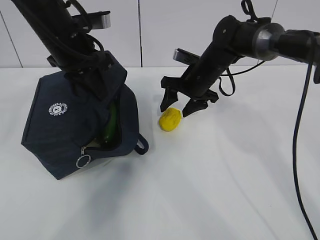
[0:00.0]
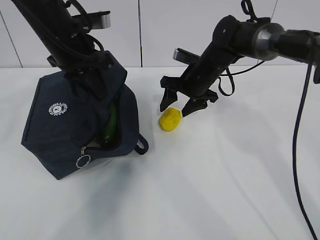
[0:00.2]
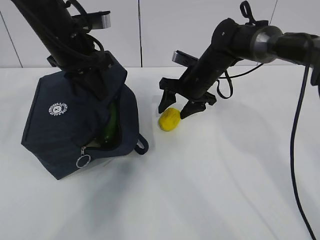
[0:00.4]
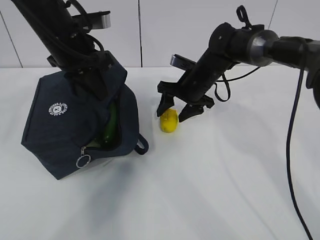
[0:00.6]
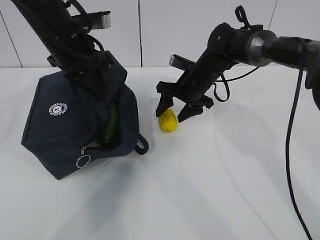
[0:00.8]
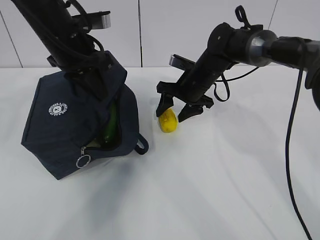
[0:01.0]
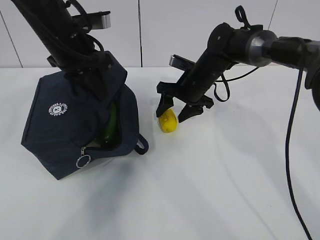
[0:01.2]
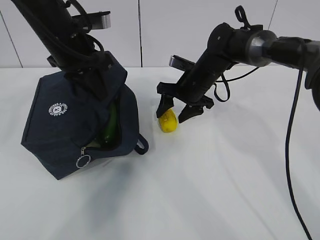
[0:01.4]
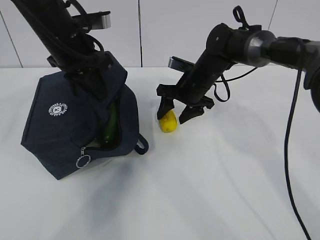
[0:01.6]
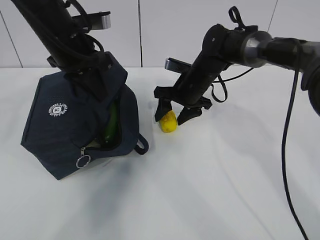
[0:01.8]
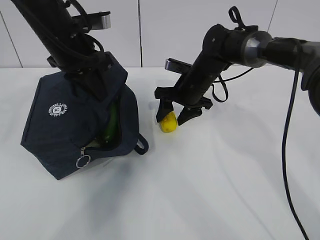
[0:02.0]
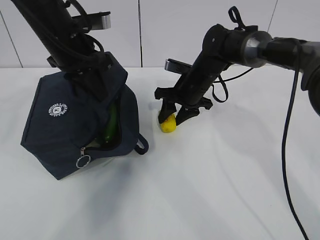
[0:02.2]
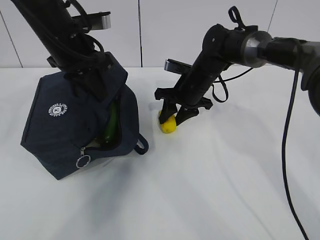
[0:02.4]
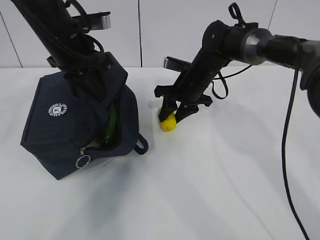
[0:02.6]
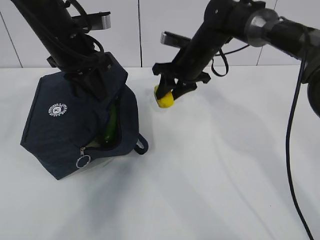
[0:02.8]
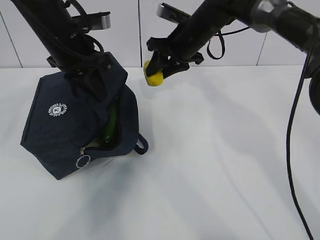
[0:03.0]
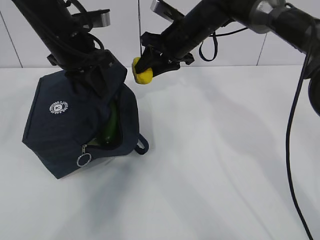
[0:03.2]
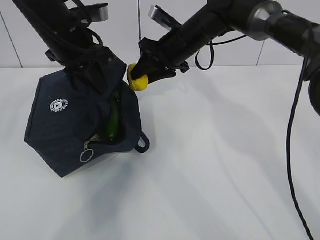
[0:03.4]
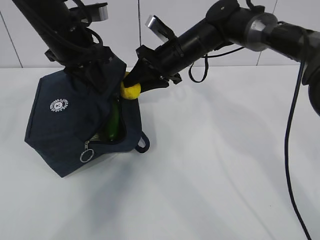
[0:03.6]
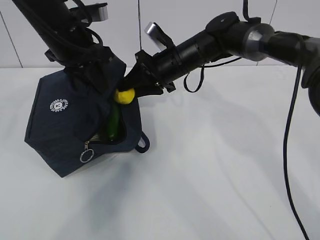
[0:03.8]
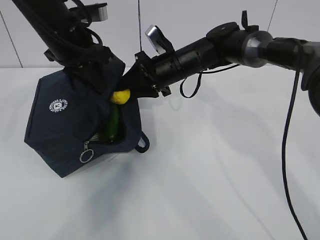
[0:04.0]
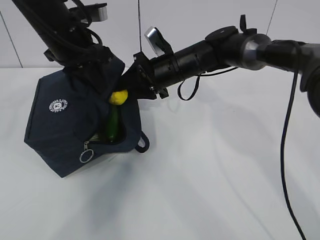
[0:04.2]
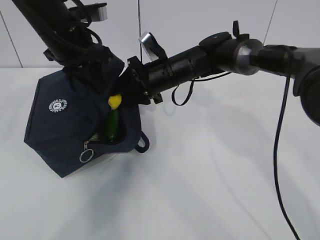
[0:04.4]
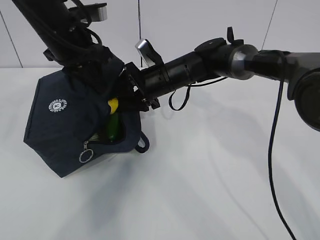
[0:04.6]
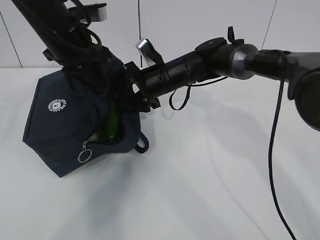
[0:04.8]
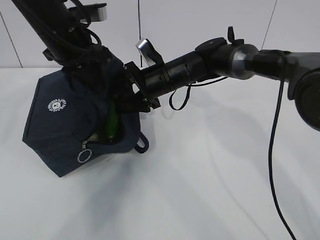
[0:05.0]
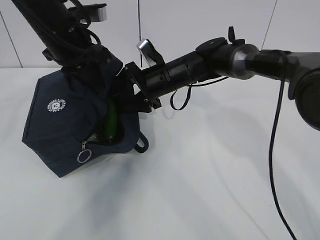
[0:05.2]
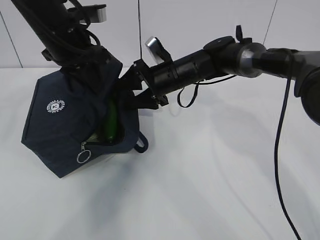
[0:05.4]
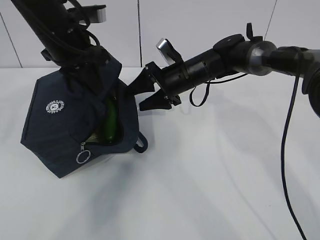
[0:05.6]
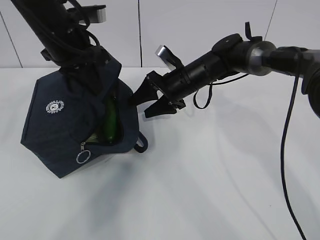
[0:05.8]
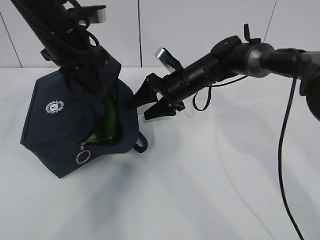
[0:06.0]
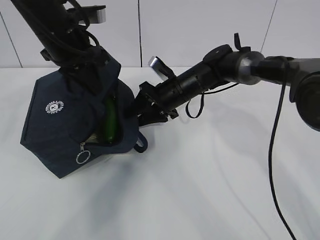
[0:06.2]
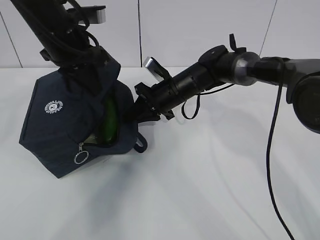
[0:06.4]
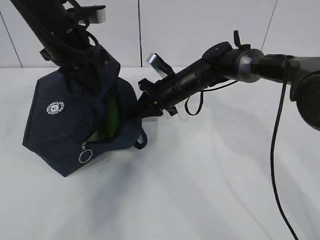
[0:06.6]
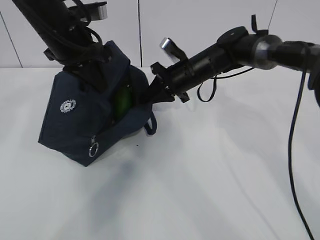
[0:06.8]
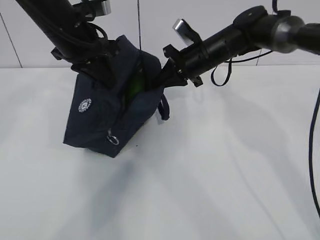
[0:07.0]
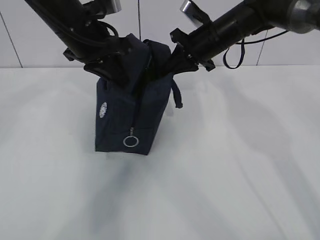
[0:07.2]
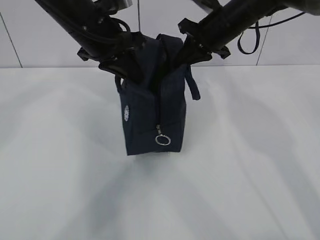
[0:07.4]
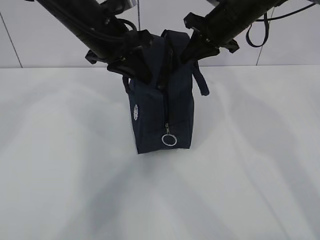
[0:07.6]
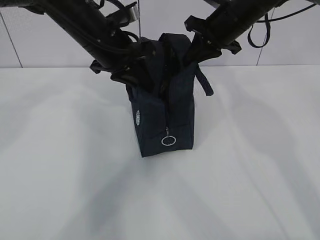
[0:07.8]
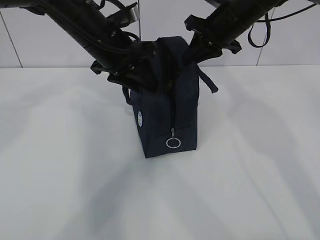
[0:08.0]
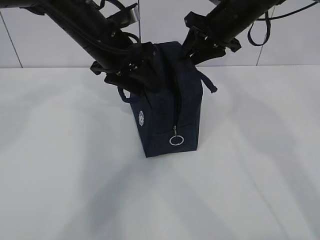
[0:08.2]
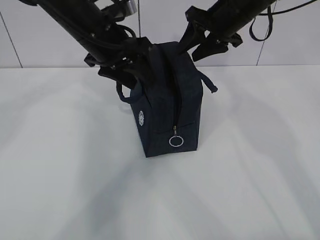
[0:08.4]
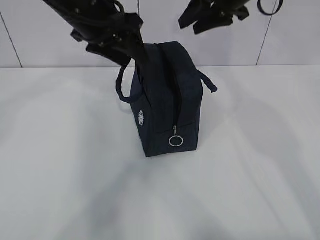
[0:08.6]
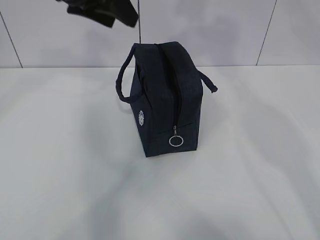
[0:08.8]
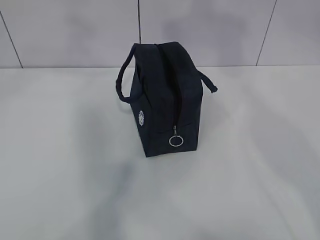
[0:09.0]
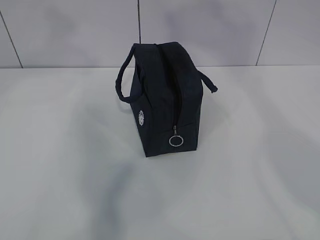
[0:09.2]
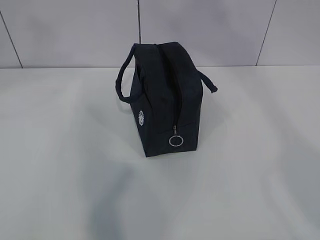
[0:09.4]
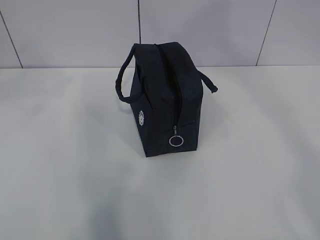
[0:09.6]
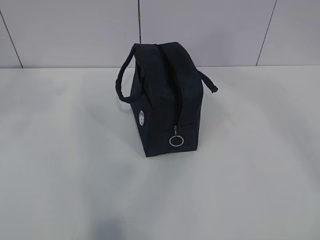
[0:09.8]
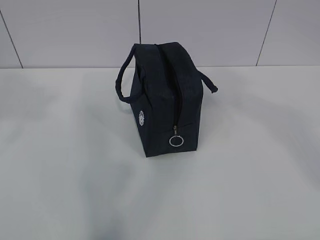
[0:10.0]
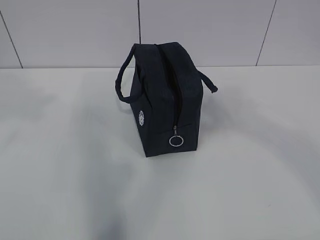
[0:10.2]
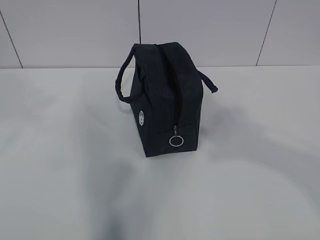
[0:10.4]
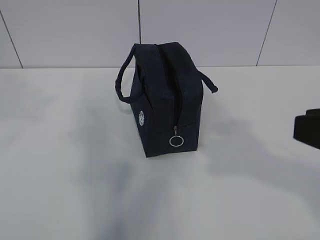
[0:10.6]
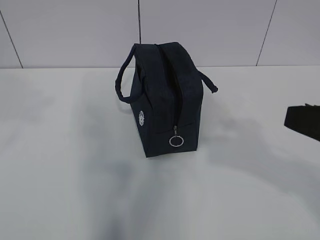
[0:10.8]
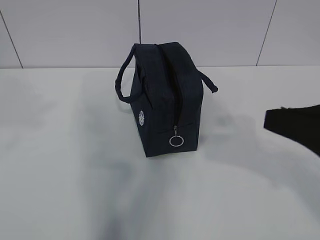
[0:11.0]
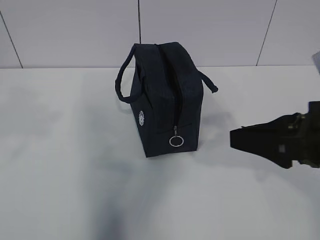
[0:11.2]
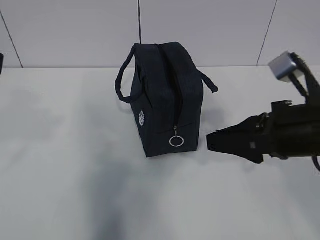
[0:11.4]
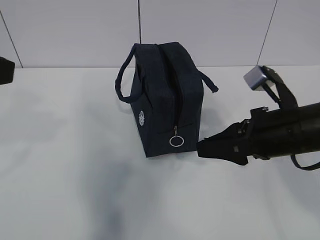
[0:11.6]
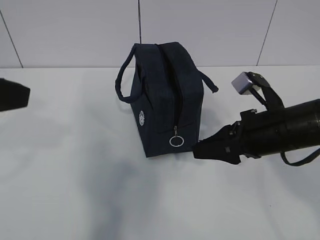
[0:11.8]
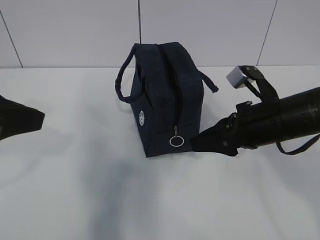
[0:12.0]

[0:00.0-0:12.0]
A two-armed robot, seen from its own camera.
Step, 0:00.0 to 0:01.2: Grab the lunch bag with your right hand.
0:00.0 to 0:01.6: The grippers make only small movements.
0:01.6 to 0:03.0: The right gripper travels upward by about 10 cm, and closes up.
0:03.0 to 0:04.4: The right gripper is displaced downward by approximately 5 cm.
0:04.4 to 0:06.0: The right gripper shifts by about 5 cm, and opens up.
0:06.0 to 0:07.6: The left gripper travels to the right by roughly 5 cm, while the right gripper shifts about 15 cm upward and to the right, and closes its fingers.
0:07.6 to 0:09.0: Both grippers move upward and backward, some 20 cm. The right gripper opens. Meanwhile the left gripper opens.
0:09.0 to 0:10.4: The left gripper shifts some 20 cm backward and to the left. Meanwhile the right gripper moves backward and downward, roughly 30 cm.
0:10.4 to 0:12.0: The right gripper travels forward and downward by approximately 25 cm; the left gripper shifts some 15 cm downward.

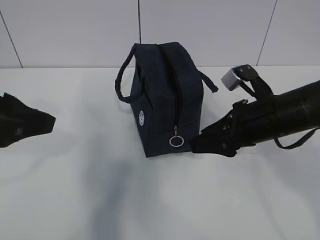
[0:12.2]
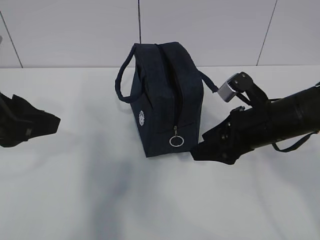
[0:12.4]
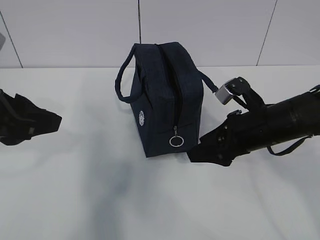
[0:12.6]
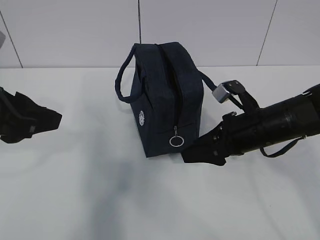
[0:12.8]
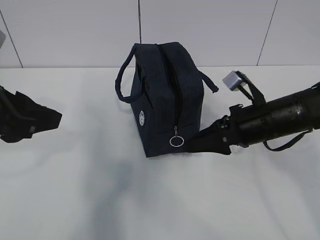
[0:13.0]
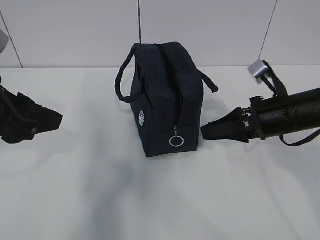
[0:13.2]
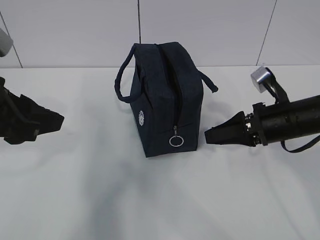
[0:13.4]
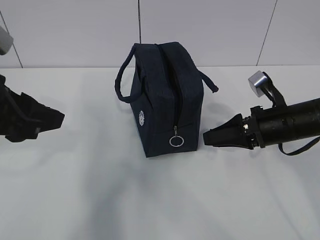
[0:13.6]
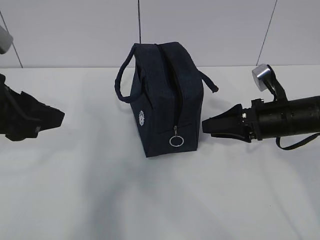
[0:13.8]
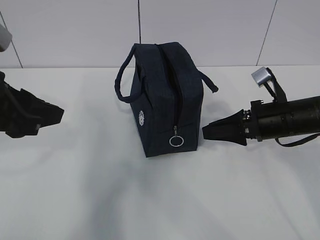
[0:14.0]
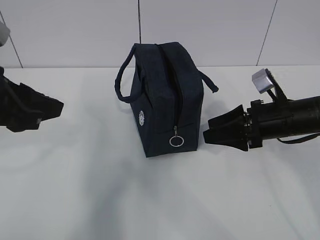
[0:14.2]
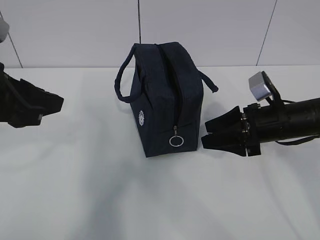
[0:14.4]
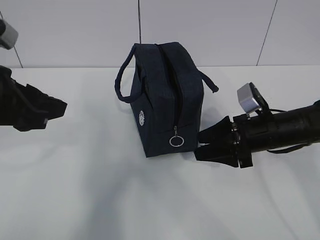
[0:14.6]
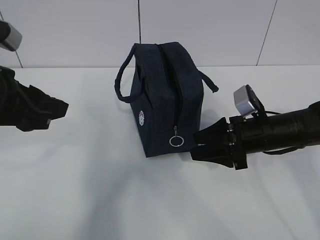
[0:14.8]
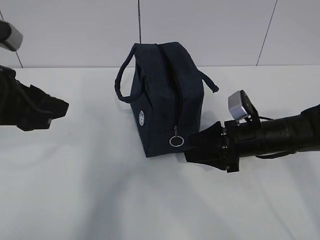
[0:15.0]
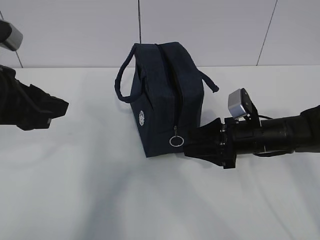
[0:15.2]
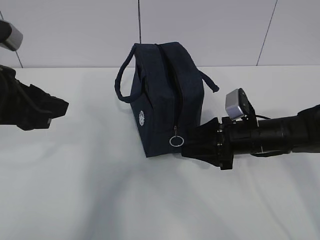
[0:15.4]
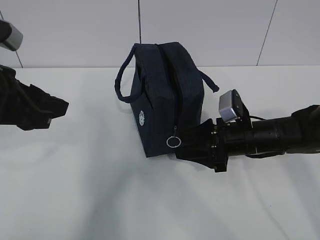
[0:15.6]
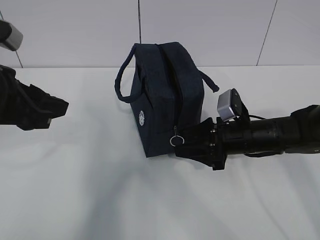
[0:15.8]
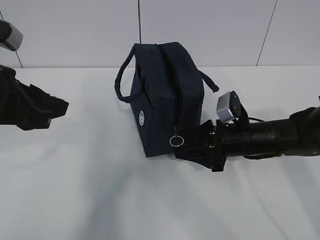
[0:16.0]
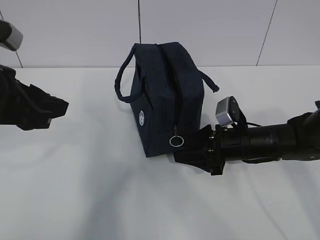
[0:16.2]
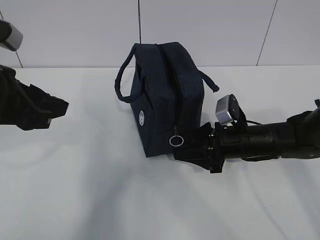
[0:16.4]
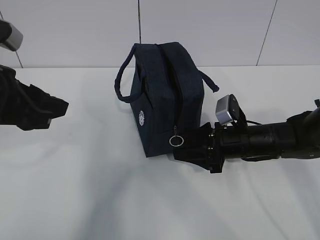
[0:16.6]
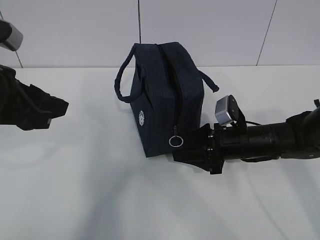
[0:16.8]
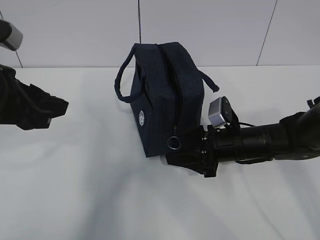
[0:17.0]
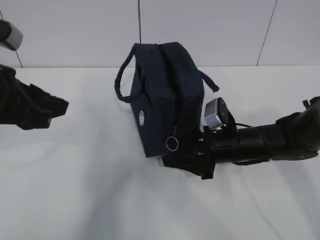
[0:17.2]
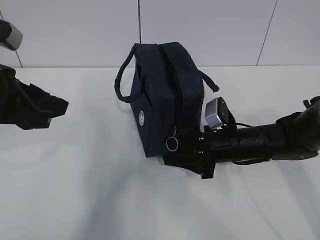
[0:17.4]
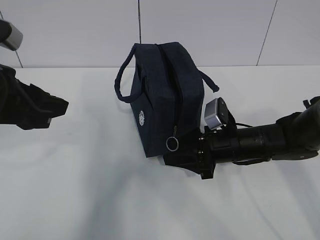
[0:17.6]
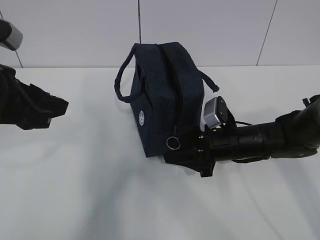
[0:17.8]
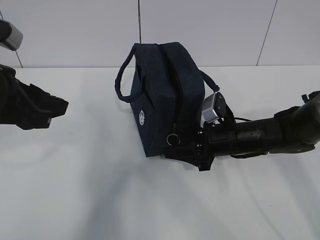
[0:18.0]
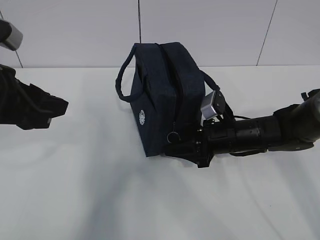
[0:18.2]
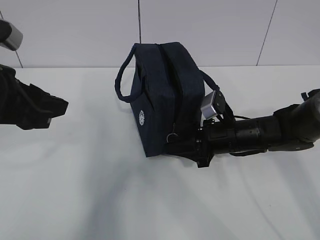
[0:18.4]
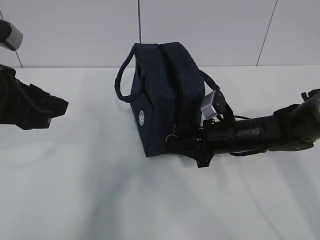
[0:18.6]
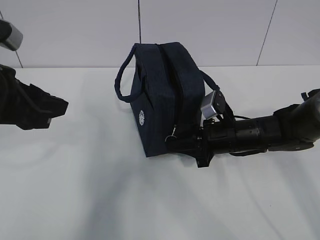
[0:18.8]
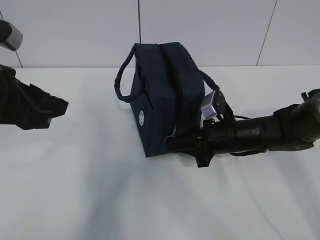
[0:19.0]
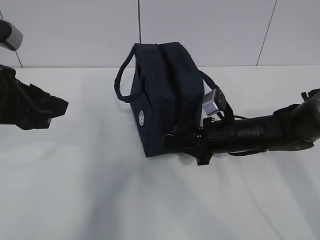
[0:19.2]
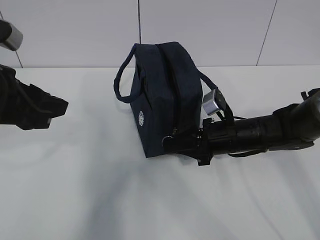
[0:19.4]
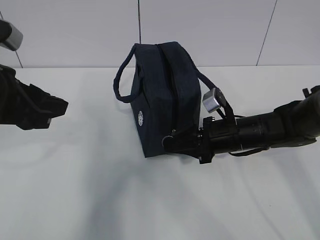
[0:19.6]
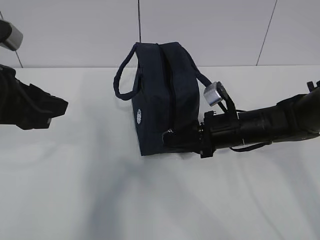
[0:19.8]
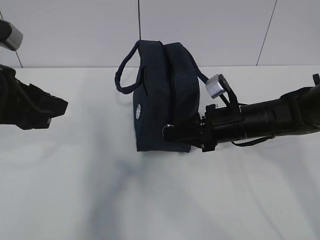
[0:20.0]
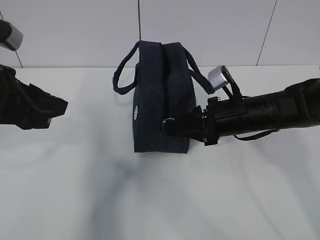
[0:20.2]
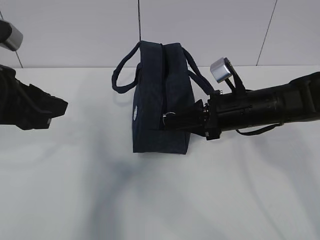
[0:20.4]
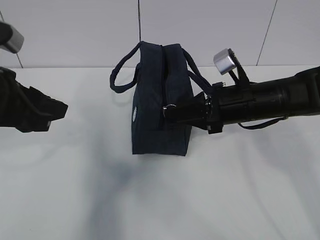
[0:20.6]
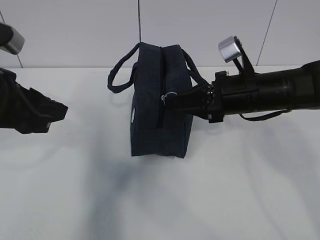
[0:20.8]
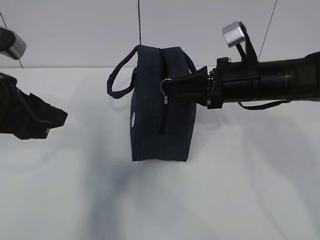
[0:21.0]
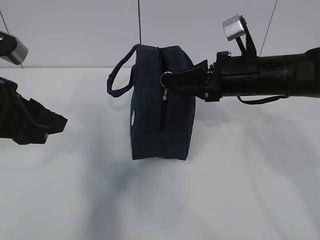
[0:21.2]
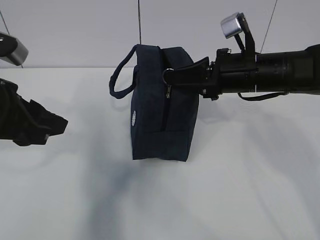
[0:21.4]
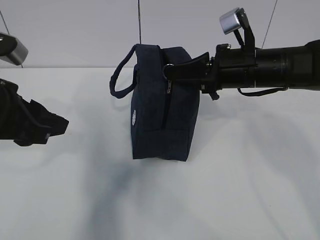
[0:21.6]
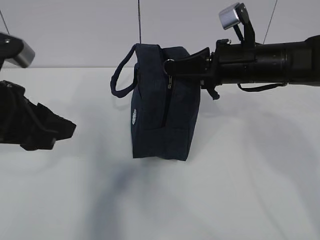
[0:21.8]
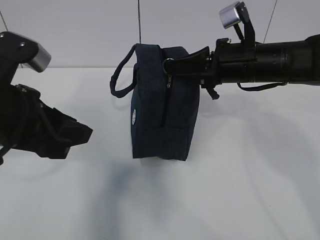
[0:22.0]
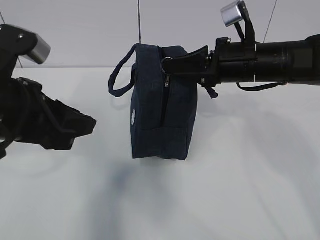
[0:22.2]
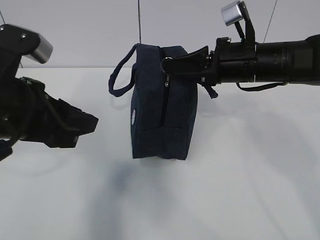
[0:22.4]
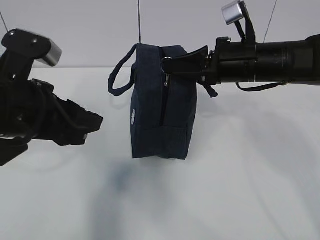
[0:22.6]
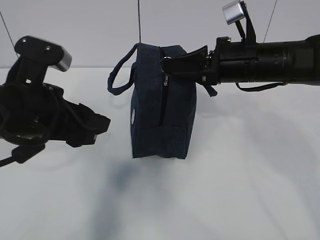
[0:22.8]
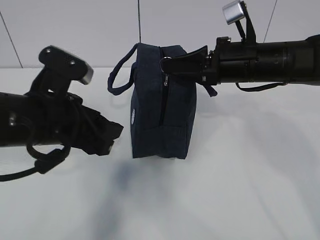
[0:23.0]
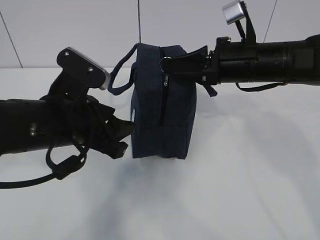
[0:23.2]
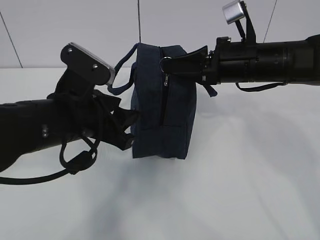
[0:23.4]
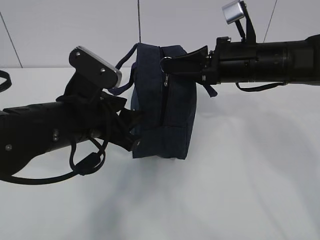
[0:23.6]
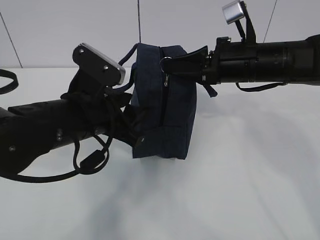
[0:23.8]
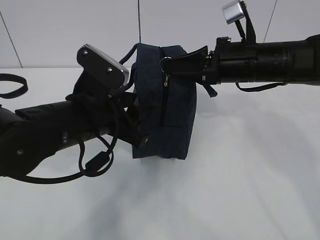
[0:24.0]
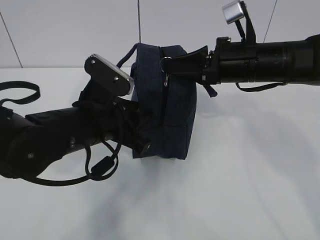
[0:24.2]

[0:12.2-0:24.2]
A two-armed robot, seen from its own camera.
Step, 0:12.2 to 0:18.6: Grab the lunch bag with your left hand.
Step, 0:19.0 to 0:24.0: Pull the zipper with your right hand.
0:12.2 to 0:13.8: The right gripper shifts by about 5 cm.
0:13.8 to 0:15.2: The right gripper moves approximately 5 cm.
0:15.2 to 0:18.2: The grippers move only a little.
0:18.2 to 0:19.8: The right gripper closes up.
0:19.8 to 0:21.2: The right gripper travels upward by roughly 10 cm.
0:21.2 to 0:22.6: The grippers make only small movements.
0:22.6 to 0:24.2: The left gripper travels downward and to the right by roughly 10 cm.
